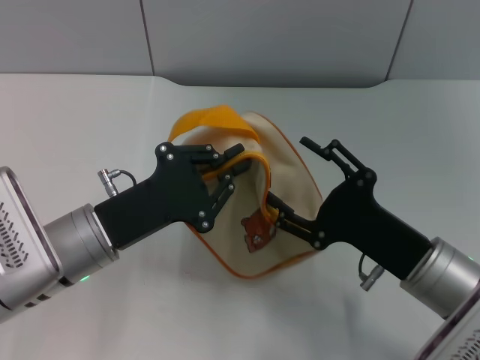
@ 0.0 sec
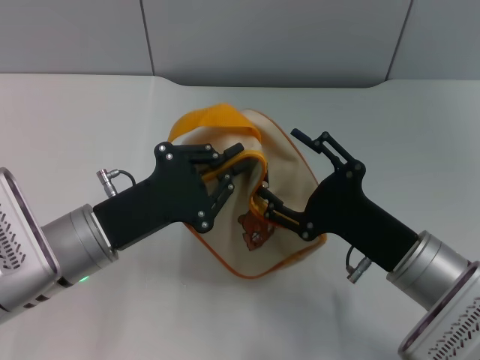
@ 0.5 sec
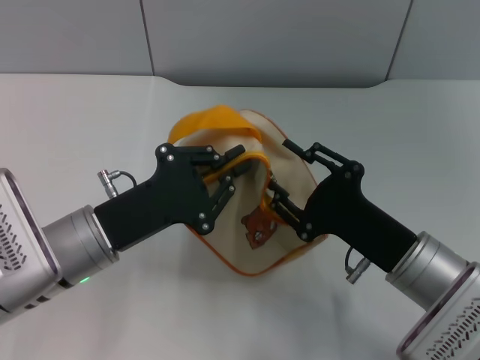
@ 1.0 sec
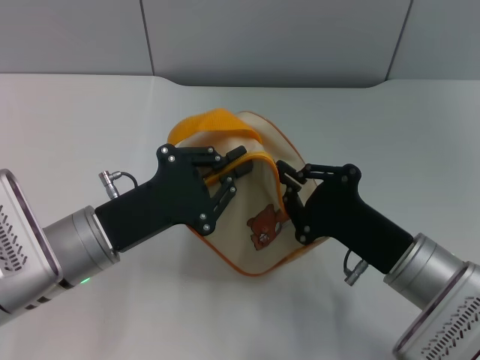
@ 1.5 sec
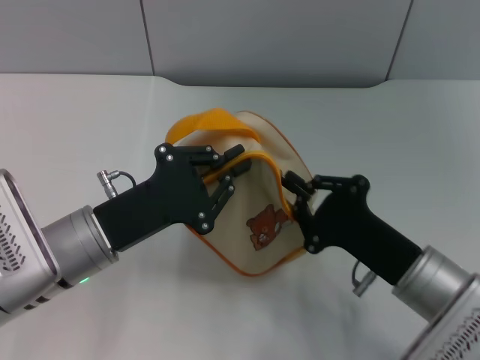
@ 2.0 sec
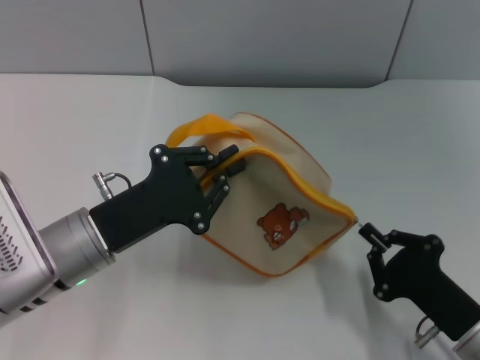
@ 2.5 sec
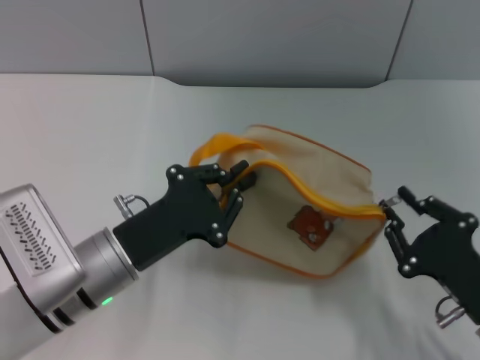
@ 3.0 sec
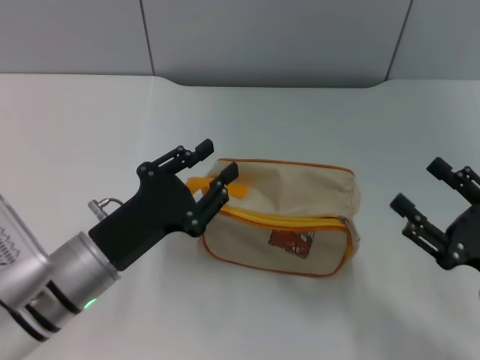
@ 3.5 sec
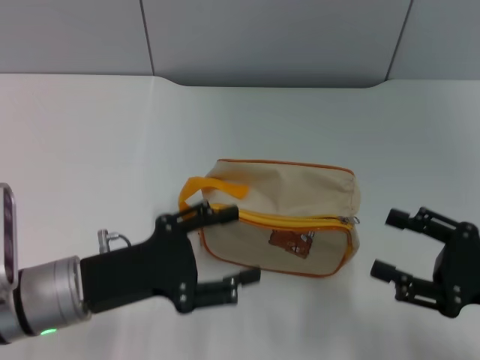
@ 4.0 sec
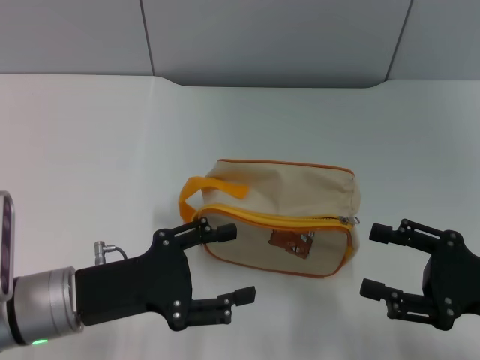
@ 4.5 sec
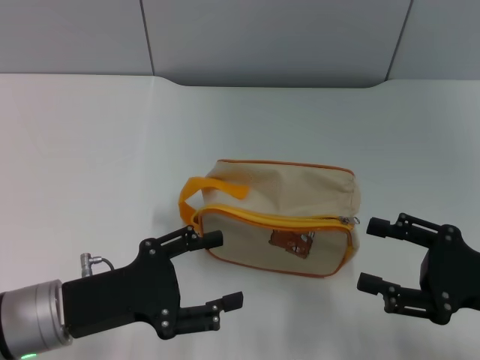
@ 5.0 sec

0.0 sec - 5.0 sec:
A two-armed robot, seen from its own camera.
Step, 0.0 sec - 3.0 sec: Unzip the zipper of bag with right gripper.
0.0 sec - 2.5 sec: The right gripper travels backward and downward by about 10 cm, and closes up.
2.5 sec - 5.0 sec: The left gripper moves about 5 cm, and opens up. The right gripper moves upward and to the right, some 10 cm, and opens its fingers.

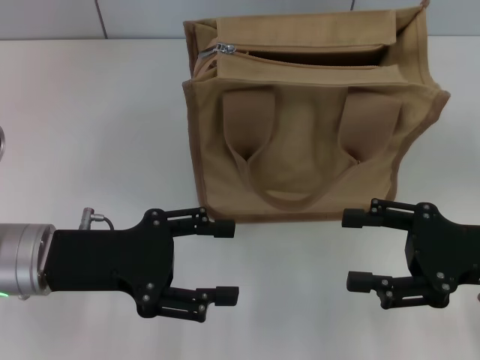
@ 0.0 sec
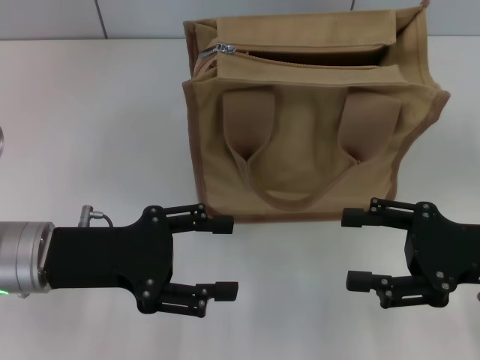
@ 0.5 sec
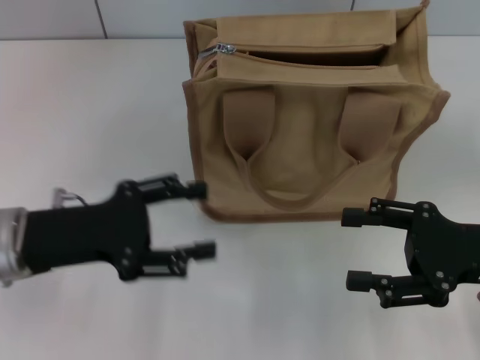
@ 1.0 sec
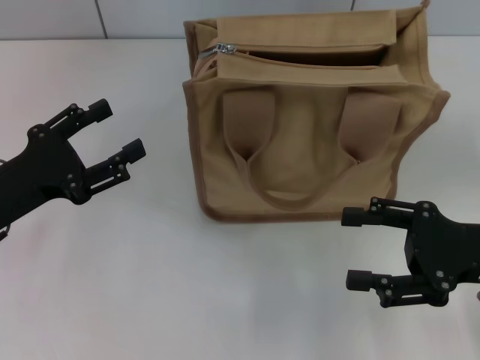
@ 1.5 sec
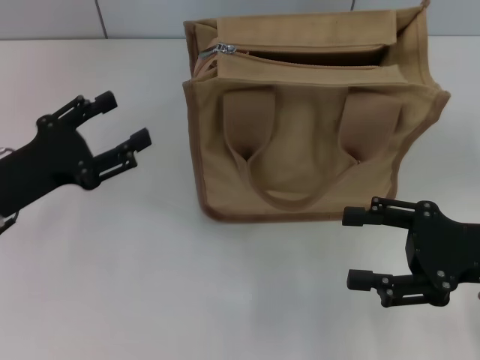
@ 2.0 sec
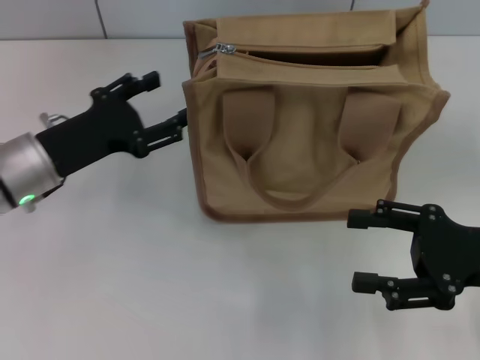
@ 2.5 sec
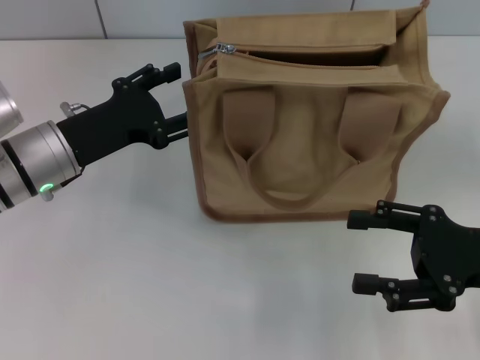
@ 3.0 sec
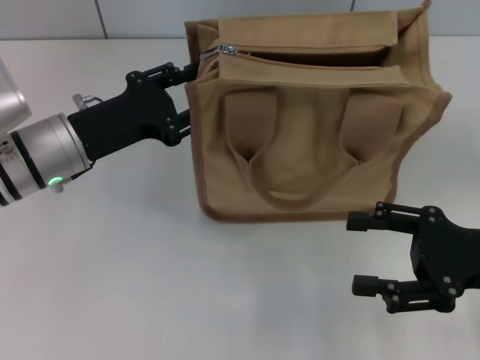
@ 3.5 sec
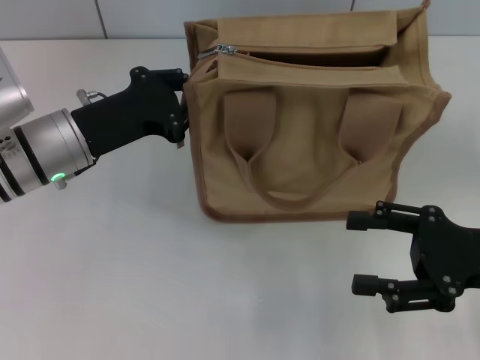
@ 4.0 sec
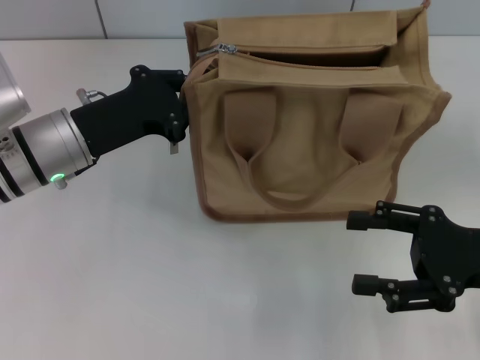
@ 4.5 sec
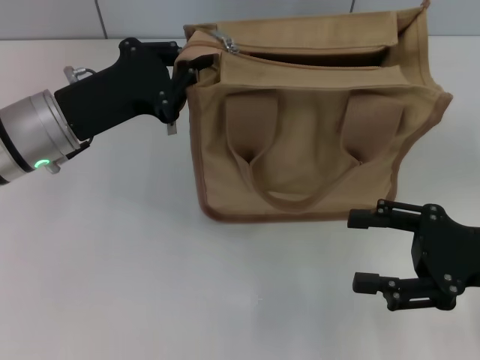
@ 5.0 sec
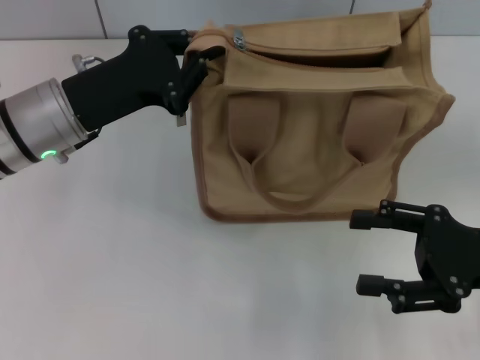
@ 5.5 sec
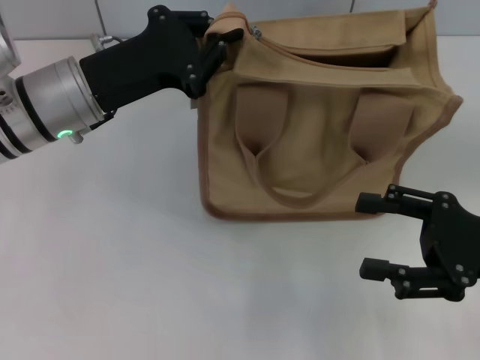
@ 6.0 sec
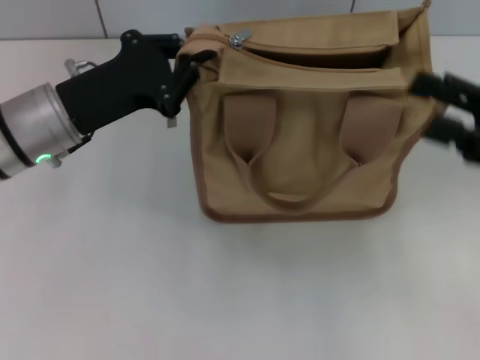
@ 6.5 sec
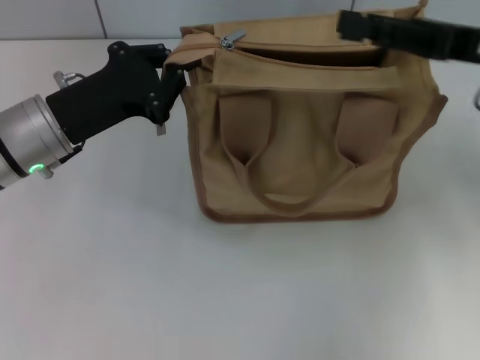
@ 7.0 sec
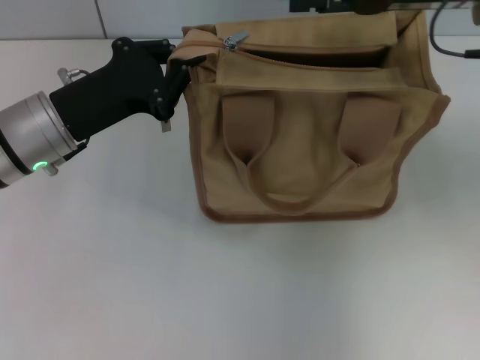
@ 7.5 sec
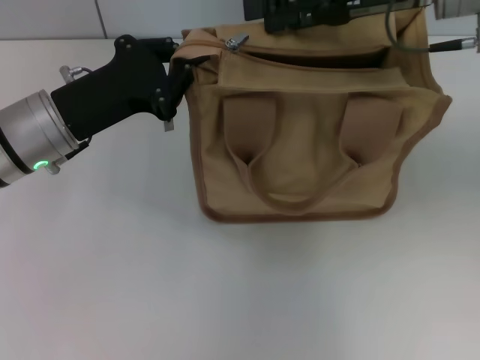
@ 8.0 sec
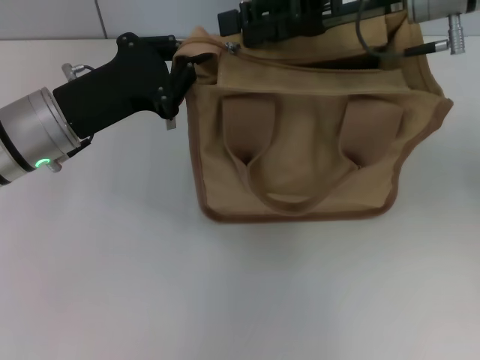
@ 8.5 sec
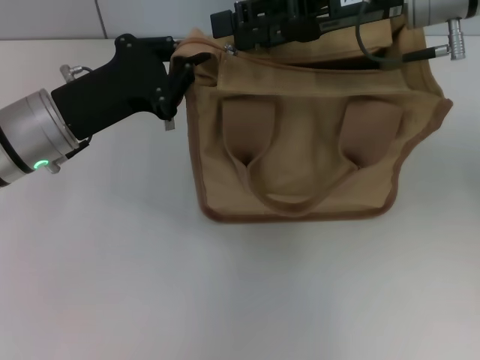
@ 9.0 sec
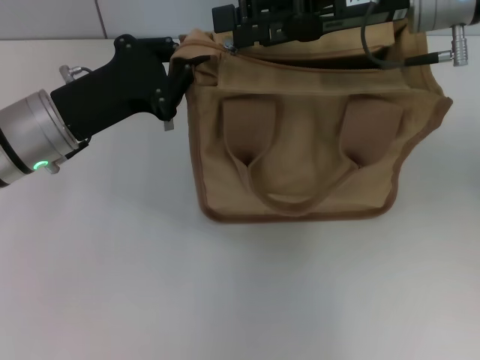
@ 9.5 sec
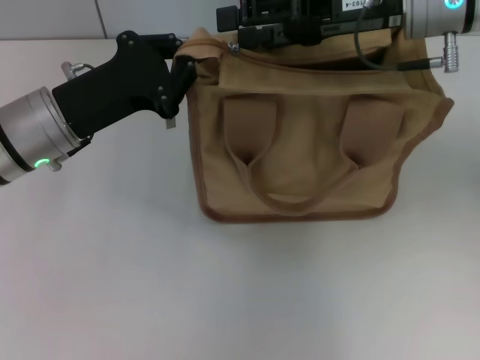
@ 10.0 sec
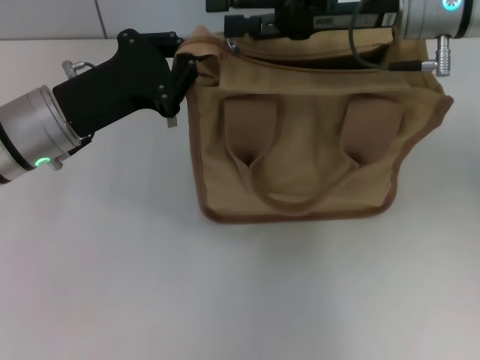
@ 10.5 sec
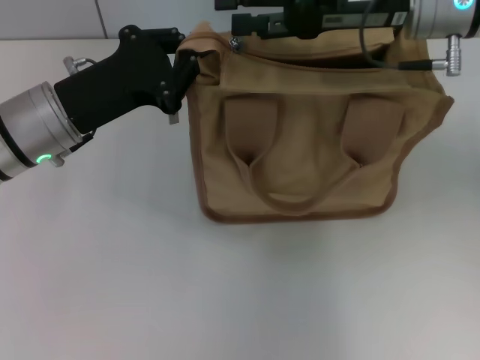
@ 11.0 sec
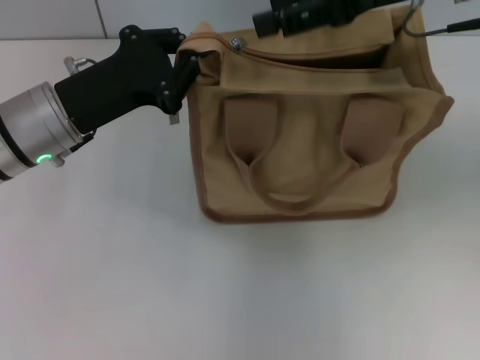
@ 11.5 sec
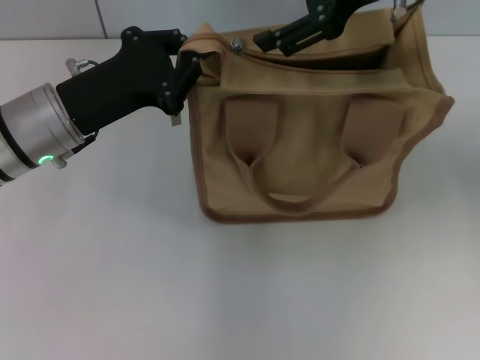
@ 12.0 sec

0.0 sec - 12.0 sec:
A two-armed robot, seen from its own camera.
0.0 sec - 2.0 sec: The left gripper travels to the left by about 5 cm.
2.0 sec - 4.0 sec: The left gripper is displaced to the right and forward by approximately 10 cm, and closes up.
6.0 sec - 8.0 sec: The right gripper moves forward, upward and to the left, roughly 25 cm.
8.0 sec - 10.0 sec: There are only small adjustments of the grippers.
10.0 sec - 12.0 sec: The right gripper shifts some 5 cm upward.

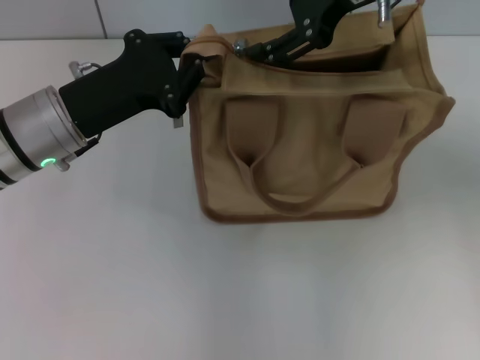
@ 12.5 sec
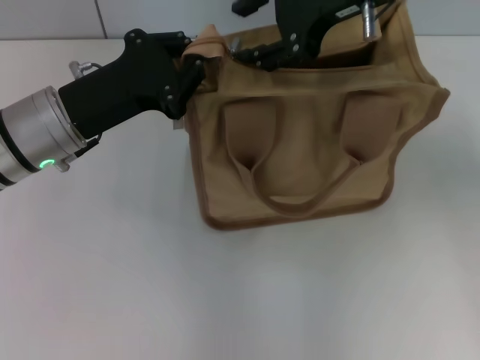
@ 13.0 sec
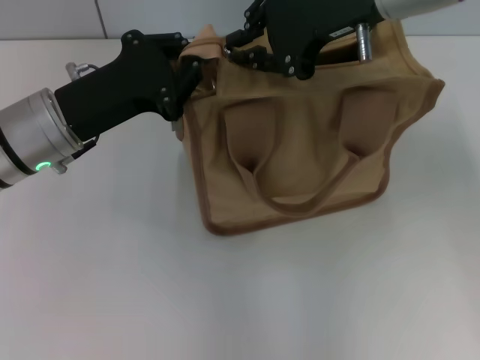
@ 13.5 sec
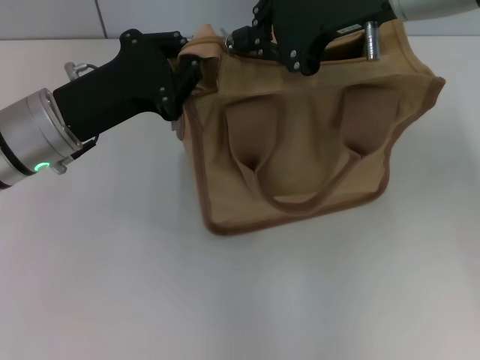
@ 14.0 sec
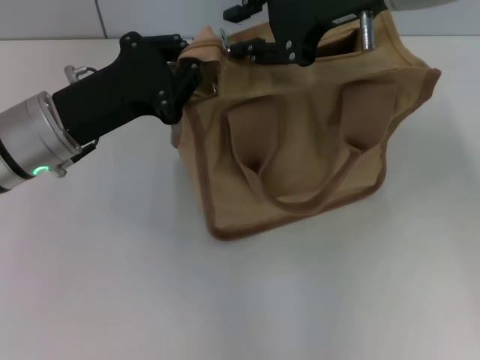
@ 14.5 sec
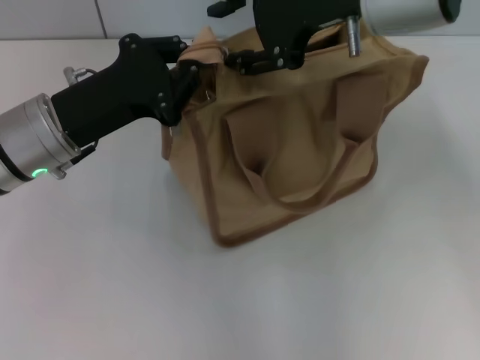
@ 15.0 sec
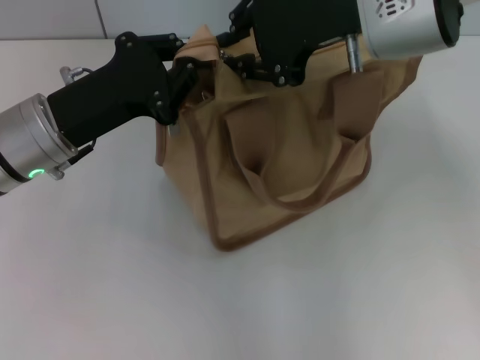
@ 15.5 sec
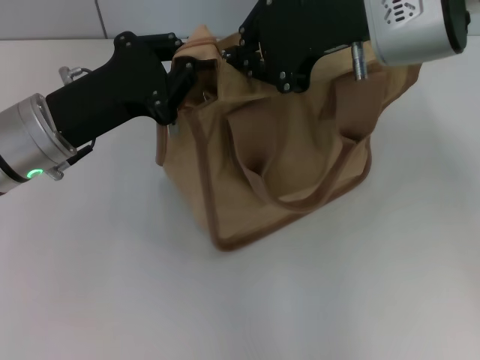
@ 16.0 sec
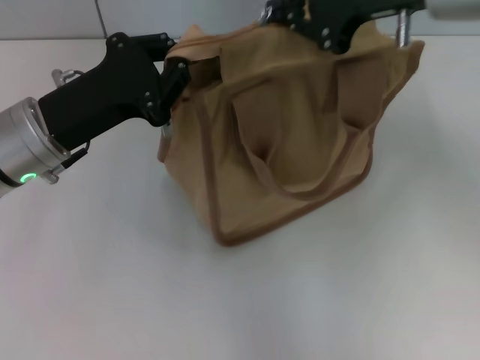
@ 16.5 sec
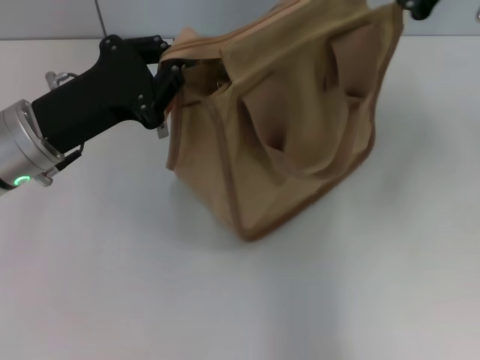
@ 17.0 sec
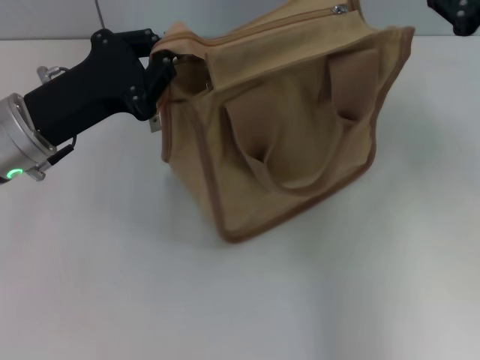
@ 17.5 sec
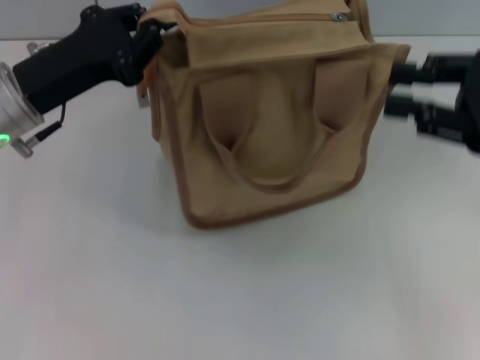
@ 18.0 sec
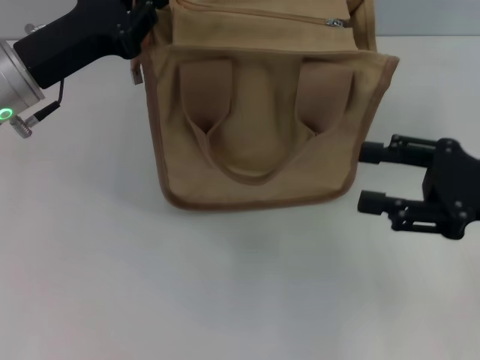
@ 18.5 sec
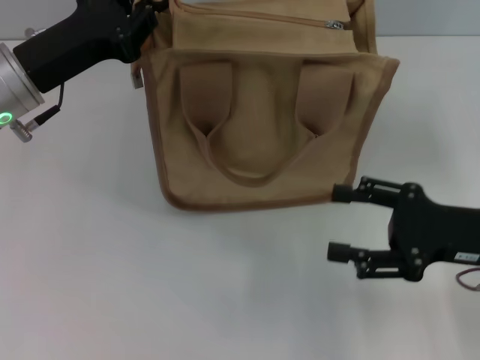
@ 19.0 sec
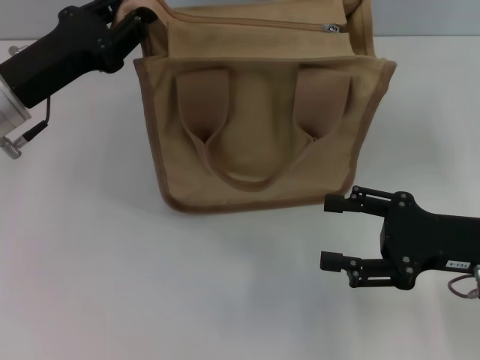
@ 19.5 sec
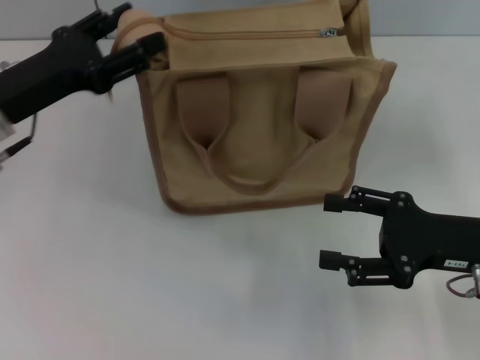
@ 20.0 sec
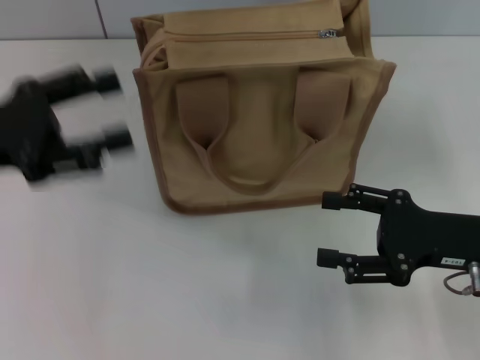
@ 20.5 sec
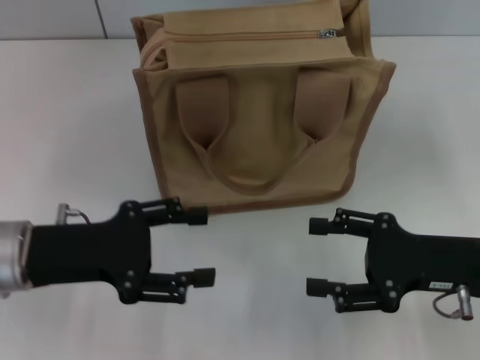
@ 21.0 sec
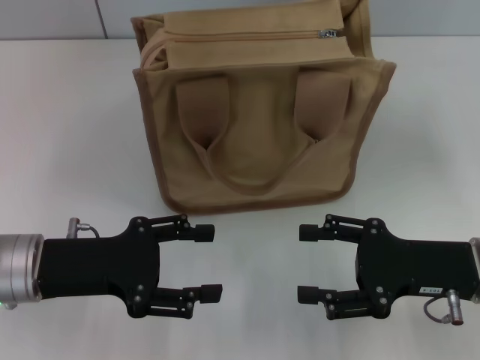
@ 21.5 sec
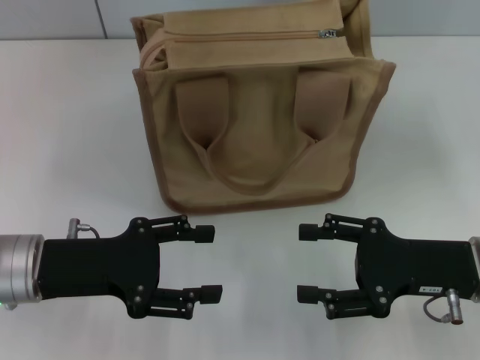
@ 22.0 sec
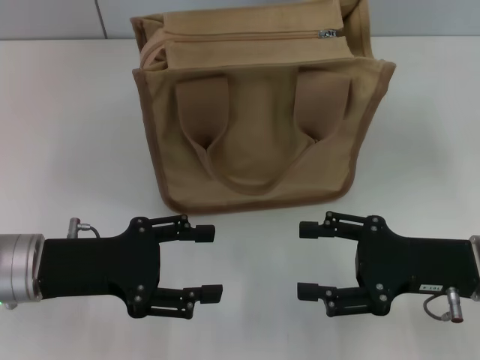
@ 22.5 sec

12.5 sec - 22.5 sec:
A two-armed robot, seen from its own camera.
Step, 12.5 sec - 17.0 sec: Pull up the zipper with your right hand.
Step, 17.5 sec - 20.0 sec: Grab the zipper with your left hand.
12.5 sec - 14.5 sec: The right gripper closes up.
14.5 sec - 16.5 sec: The right gripper opens and closes again.
16.5 sec - 18.5 sec: The right gripper is displaced downward, to the right and backward by some 20 cm, and opens. Meanwhile the left gripper moves roughly 5 cm.
18.5 sec - 20.5 sec: The right gripper changes place by approximately 5 cm. The left gripper moves backward and to the left, about 10 cm, and opens up.
20.5 sec - 22.5 sec: The left gripper is displaced downward and to the right by about 10 cm.
